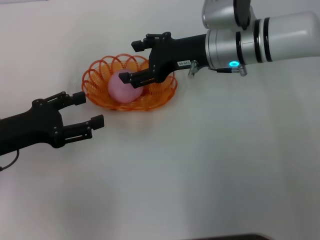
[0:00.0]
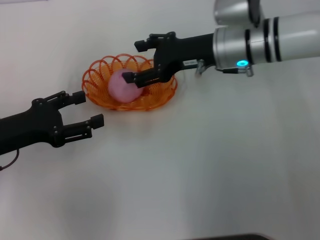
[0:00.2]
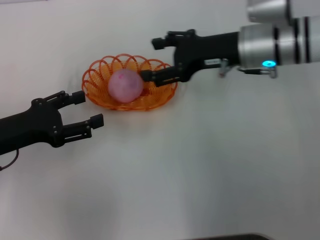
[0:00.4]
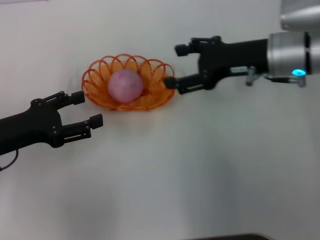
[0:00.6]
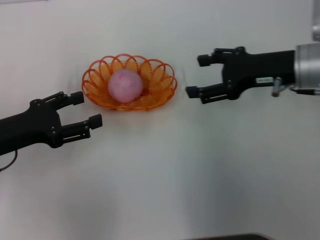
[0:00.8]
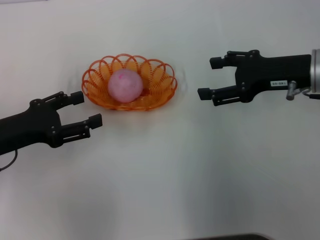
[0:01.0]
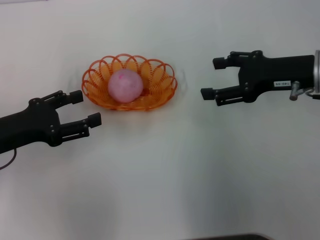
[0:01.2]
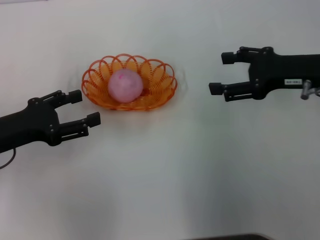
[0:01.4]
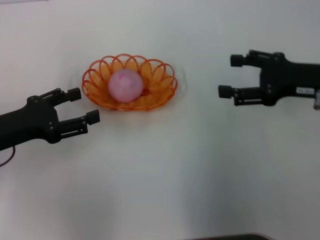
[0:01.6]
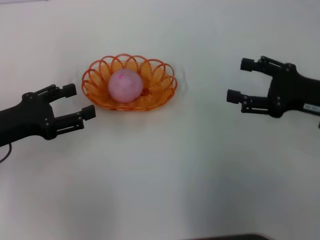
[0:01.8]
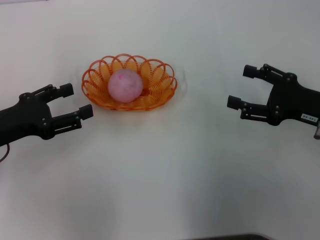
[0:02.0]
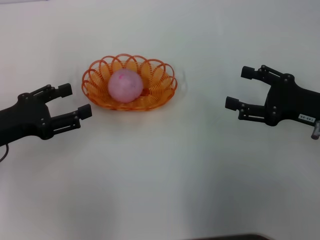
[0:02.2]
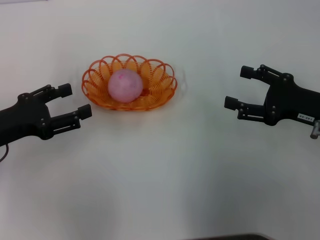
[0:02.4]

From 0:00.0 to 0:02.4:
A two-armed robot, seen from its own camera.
From 0:00.0 to 0:01.2: The right gripper shifts roughly 15 cm to the right and backward.
From 0:01.2 to 0:02.4: The right gripper is displaced downward and backward by about 10 cm.
